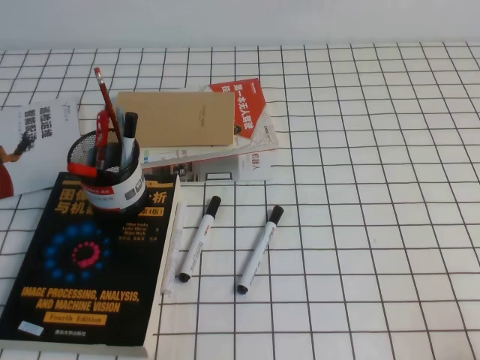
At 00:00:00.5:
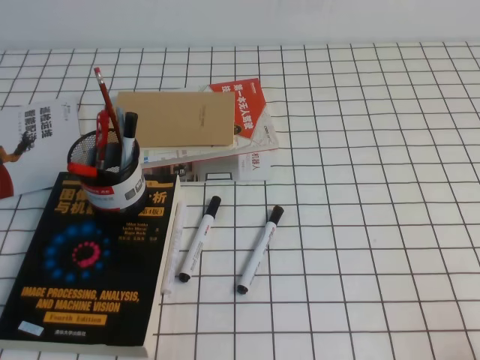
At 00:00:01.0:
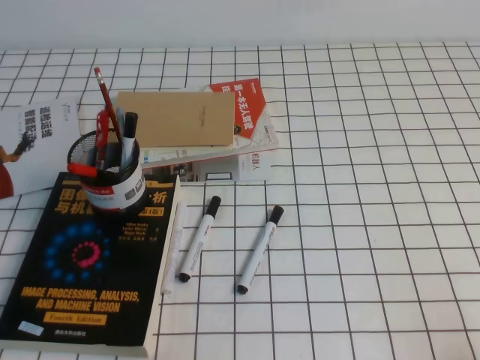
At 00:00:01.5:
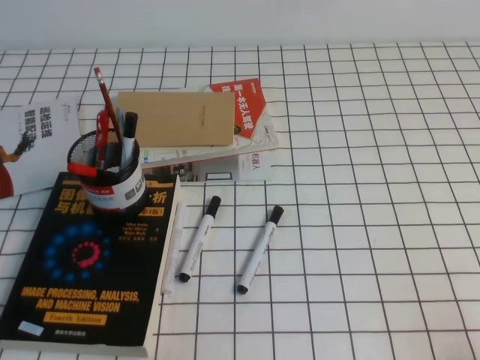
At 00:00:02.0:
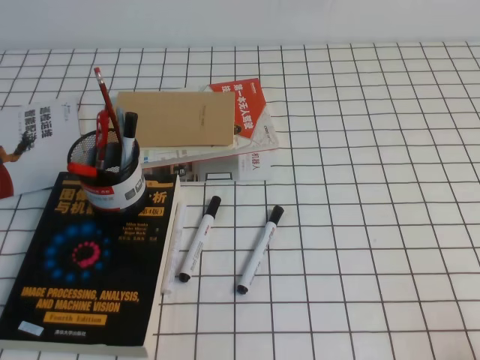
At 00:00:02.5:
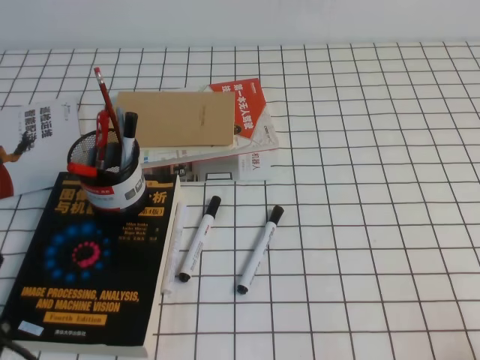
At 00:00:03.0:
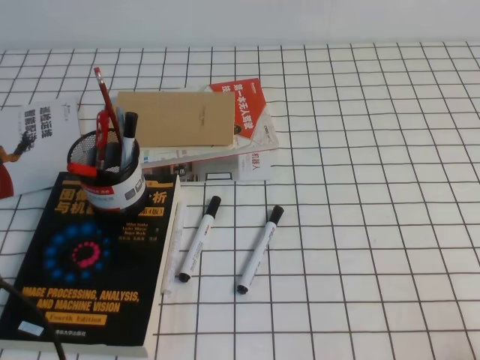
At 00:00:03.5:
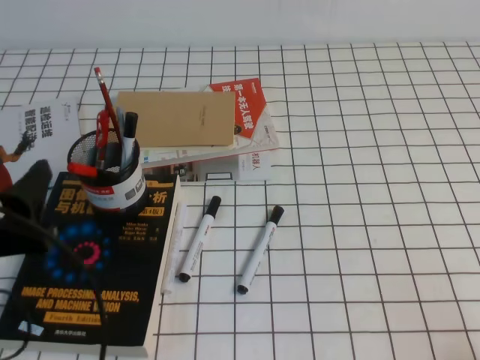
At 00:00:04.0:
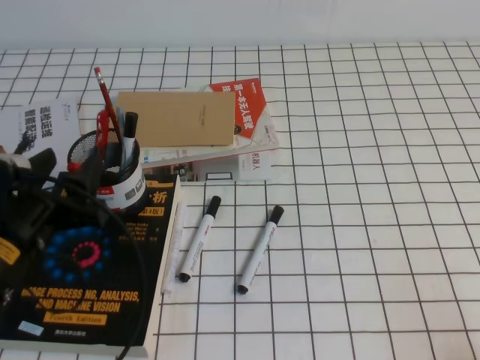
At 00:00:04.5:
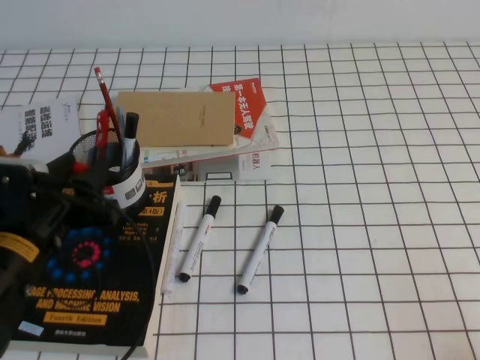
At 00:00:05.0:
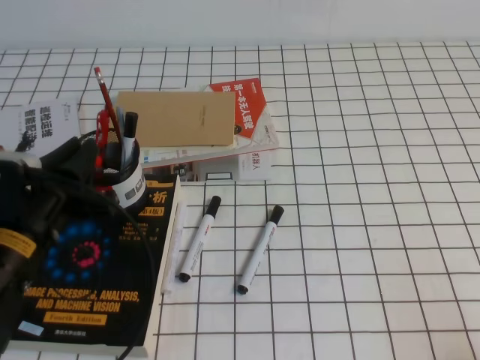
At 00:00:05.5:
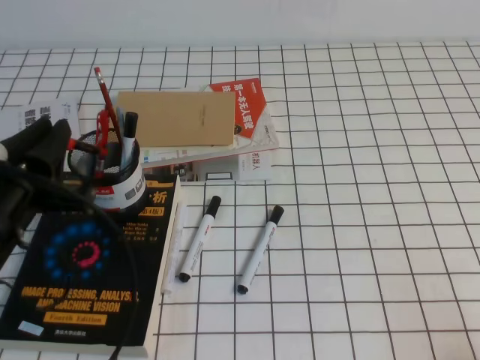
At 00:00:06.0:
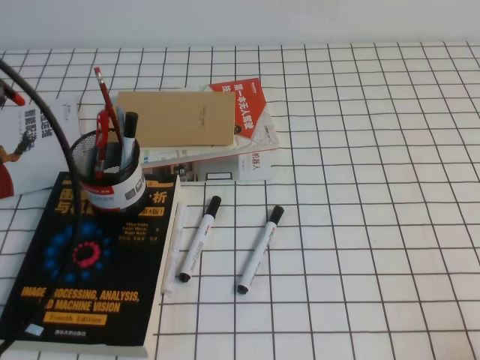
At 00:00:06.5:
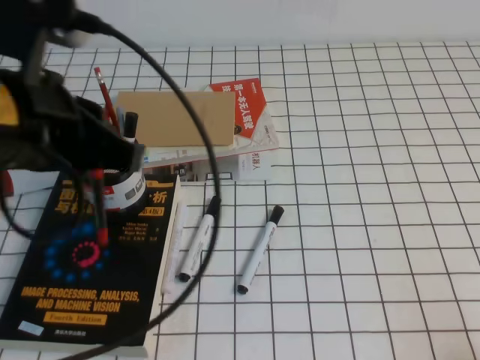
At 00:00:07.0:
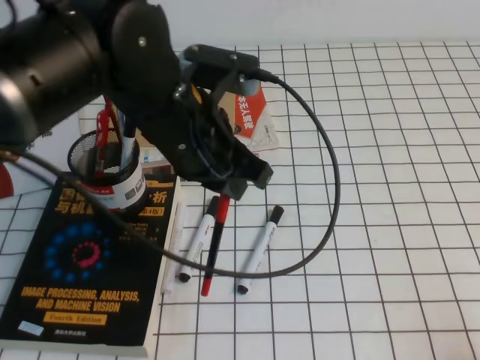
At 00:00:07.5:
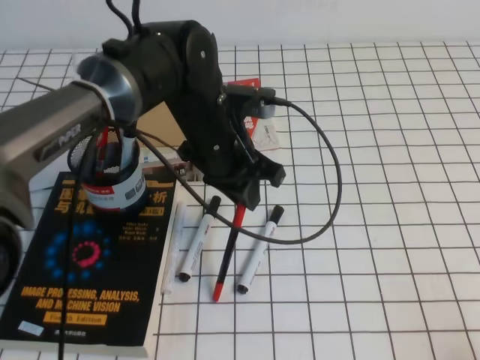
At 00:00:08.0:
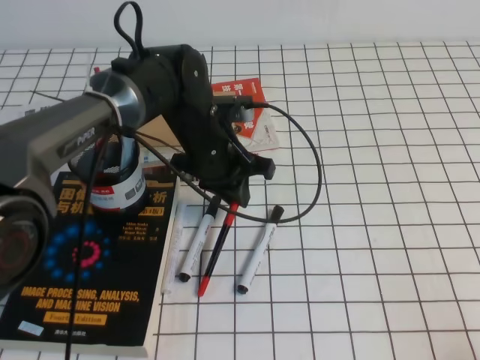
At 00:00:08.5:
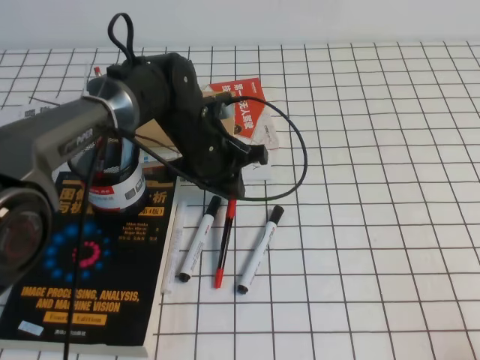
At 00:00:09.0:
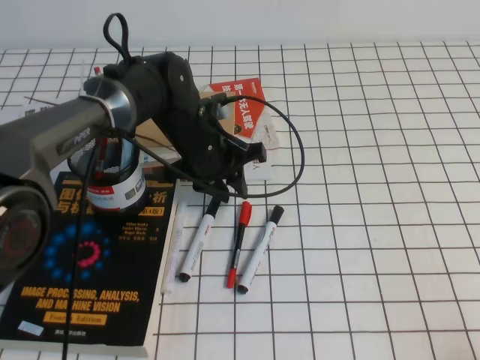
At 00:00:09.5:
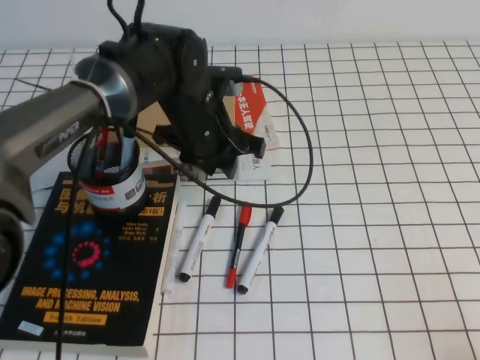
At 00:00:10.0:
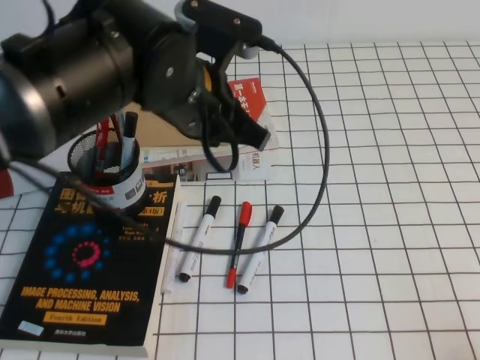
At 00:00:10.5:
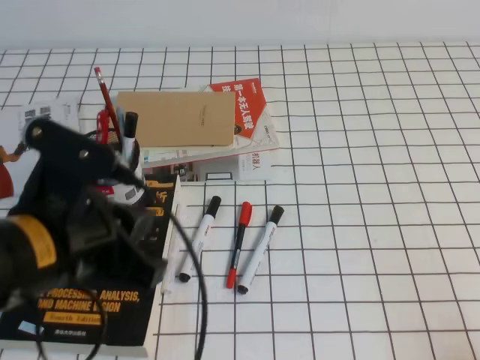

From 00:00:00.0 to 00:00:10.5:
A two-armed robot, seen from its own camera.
From 00:00:02.0 to 00:00:04.0: The left gripper is displaced forward by about 15 cm, and opens up.
From 00:00:04.0 to 00:00:06.5: The left gripper moves upward, about 15 cm, and closes.
From 00:00:06.5 to 00:00:08.5: The left gripper is displaced downward, forward and to the right by roughly 35 cm.
From 00:00:08.5 to 00:00:10.5: The left gripper is displaced backward, upward and to the left by approximately 25 cm.

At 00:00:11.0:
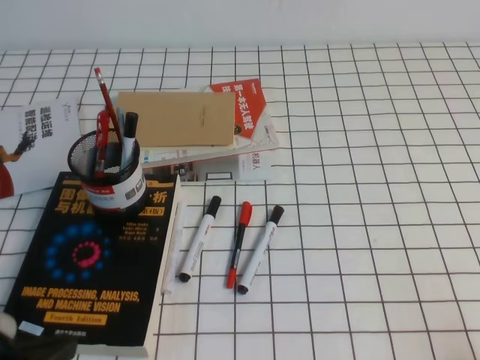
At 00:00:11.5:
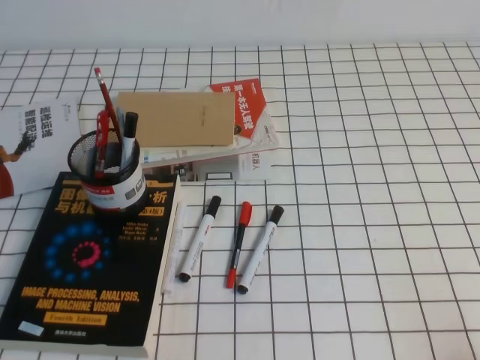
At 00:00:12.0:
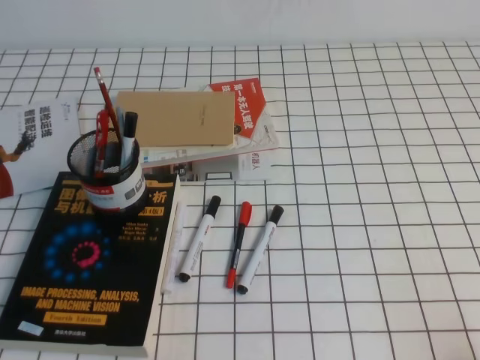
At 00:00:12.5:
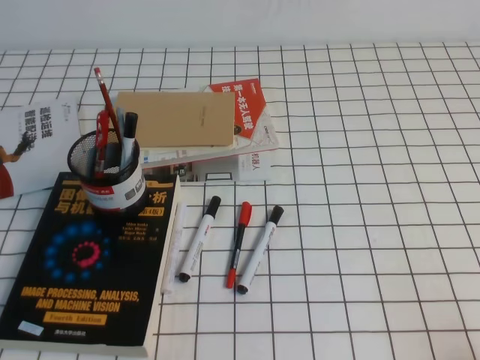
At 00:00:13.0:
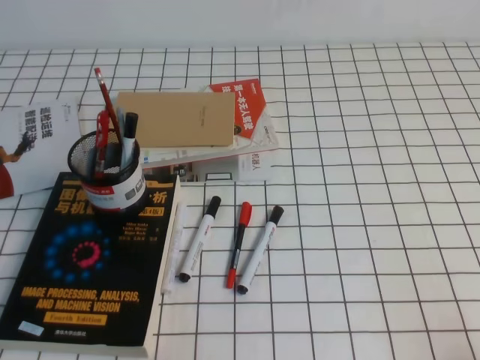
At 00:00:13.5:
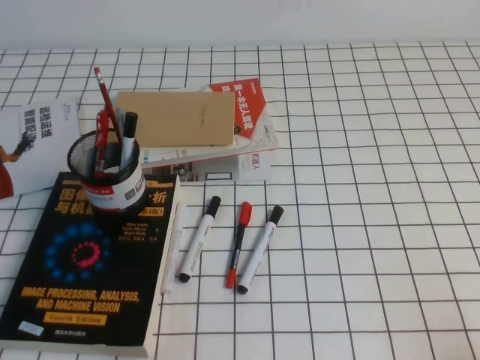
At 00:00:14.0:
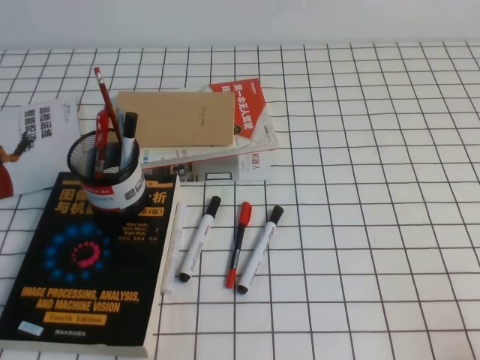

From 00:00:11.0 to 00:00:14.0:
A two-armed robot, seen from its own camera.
Step, from 00:00:11.0 to 00:00:14.0: Pick up the pen from the pen holder.
From 00:00:11.0 to 00:00:12.5: The left gripper moves to the left and backward, some 10 cm.
